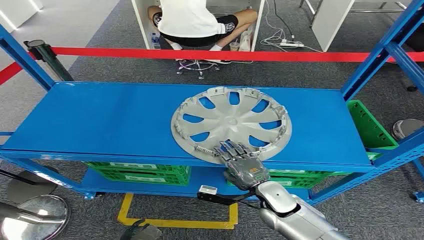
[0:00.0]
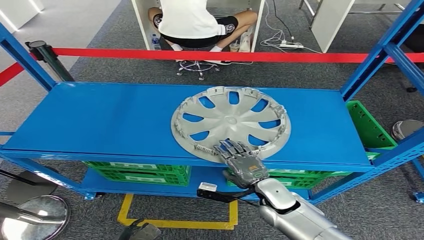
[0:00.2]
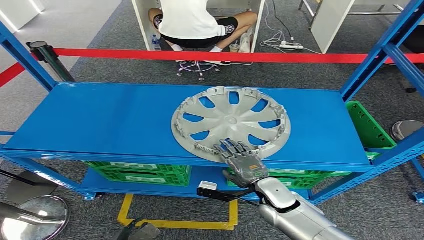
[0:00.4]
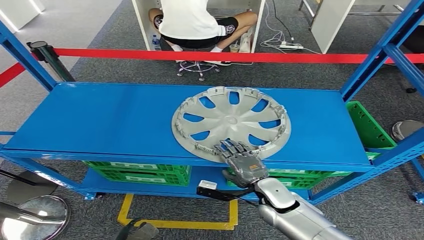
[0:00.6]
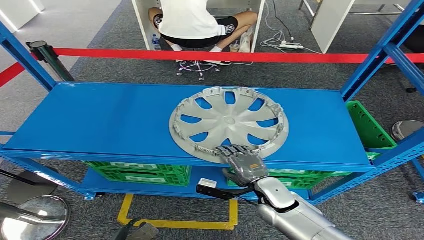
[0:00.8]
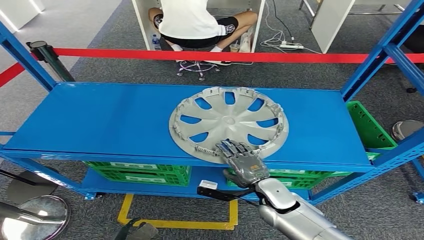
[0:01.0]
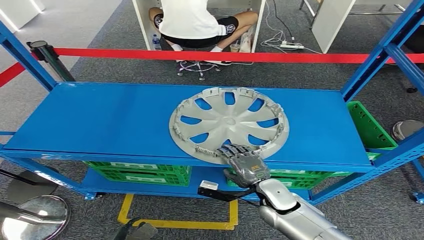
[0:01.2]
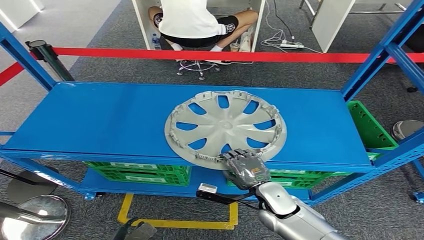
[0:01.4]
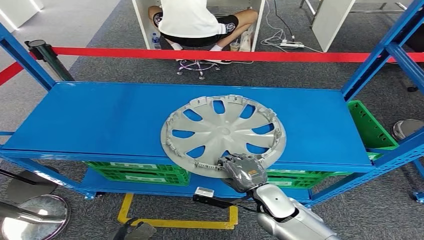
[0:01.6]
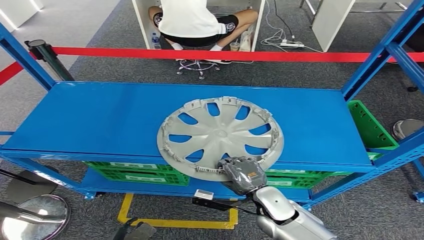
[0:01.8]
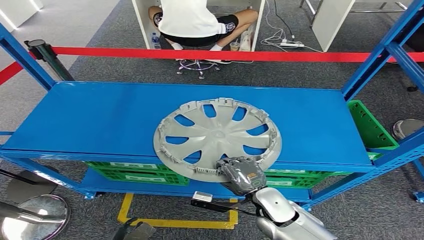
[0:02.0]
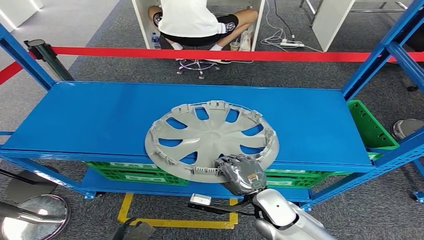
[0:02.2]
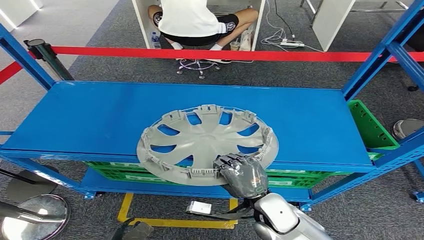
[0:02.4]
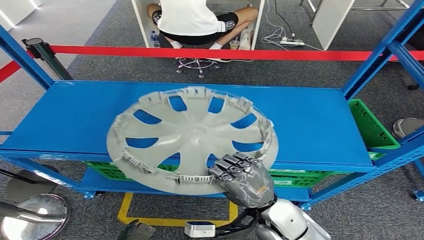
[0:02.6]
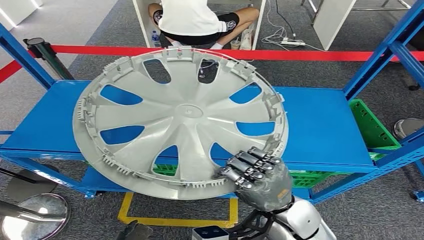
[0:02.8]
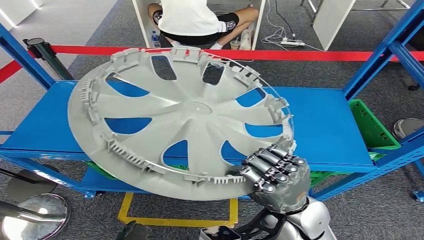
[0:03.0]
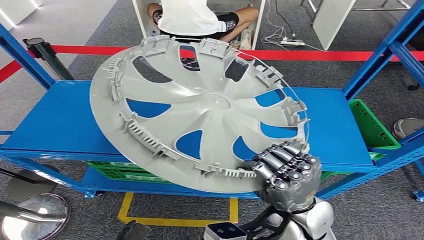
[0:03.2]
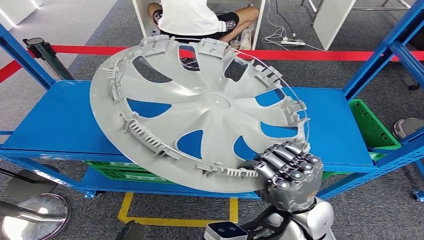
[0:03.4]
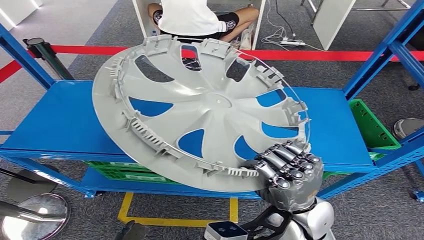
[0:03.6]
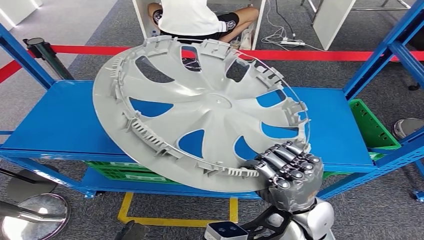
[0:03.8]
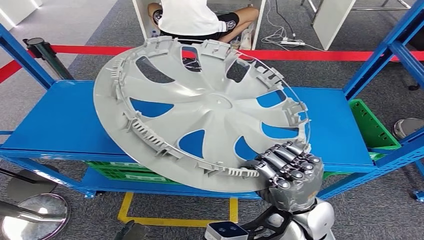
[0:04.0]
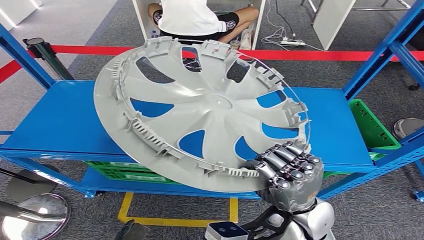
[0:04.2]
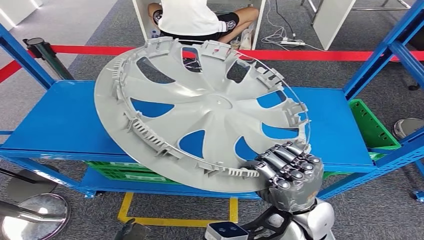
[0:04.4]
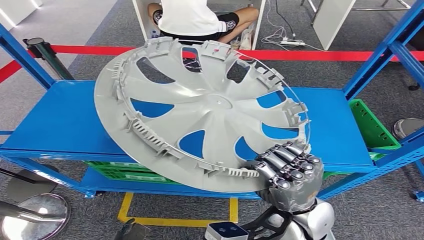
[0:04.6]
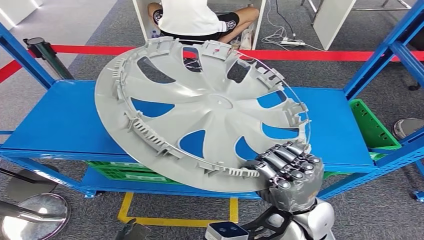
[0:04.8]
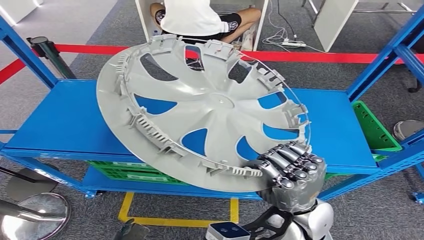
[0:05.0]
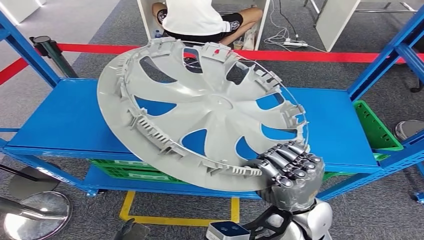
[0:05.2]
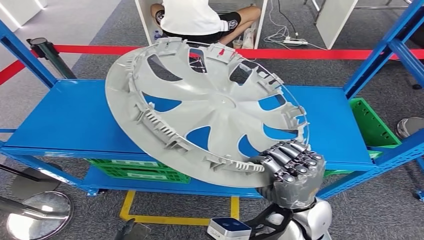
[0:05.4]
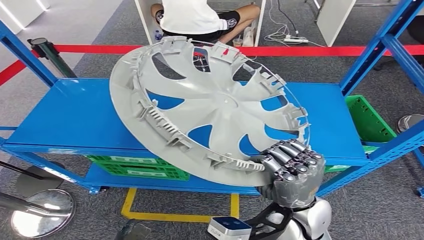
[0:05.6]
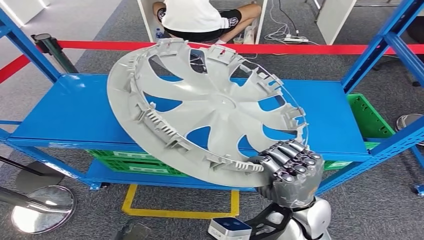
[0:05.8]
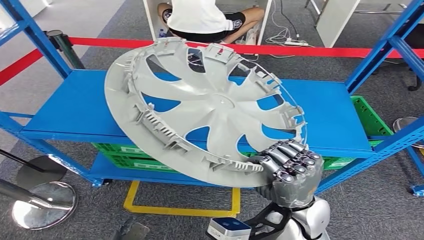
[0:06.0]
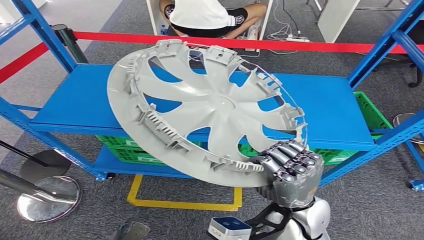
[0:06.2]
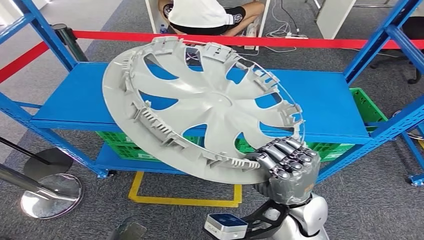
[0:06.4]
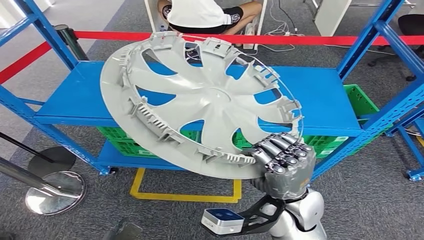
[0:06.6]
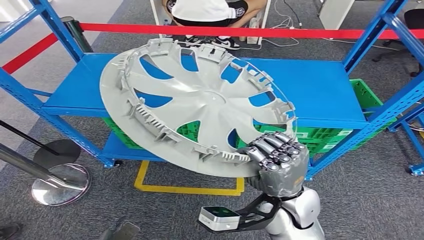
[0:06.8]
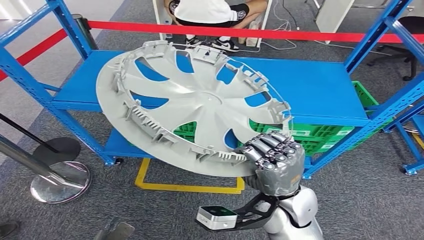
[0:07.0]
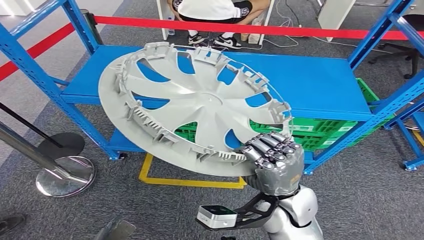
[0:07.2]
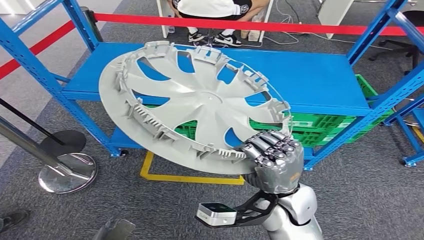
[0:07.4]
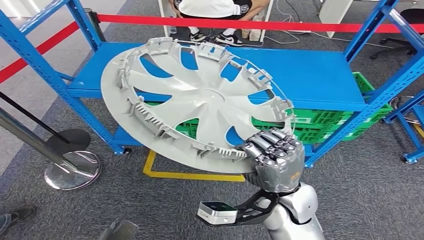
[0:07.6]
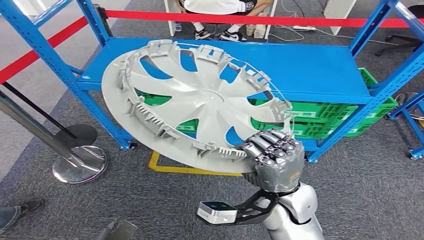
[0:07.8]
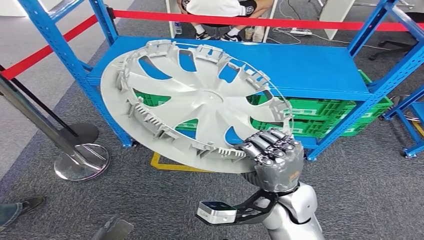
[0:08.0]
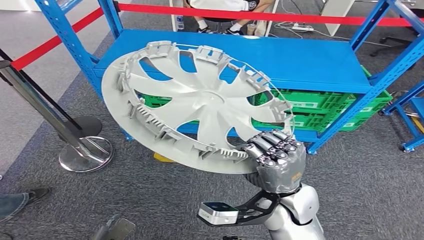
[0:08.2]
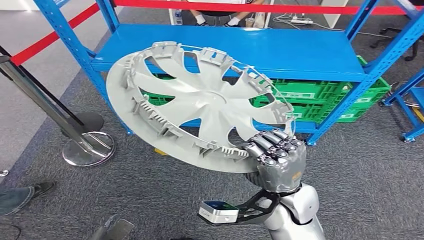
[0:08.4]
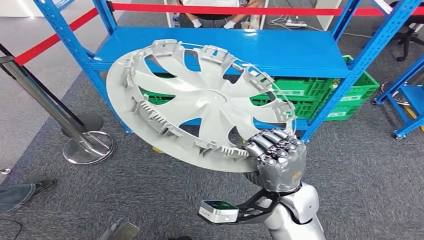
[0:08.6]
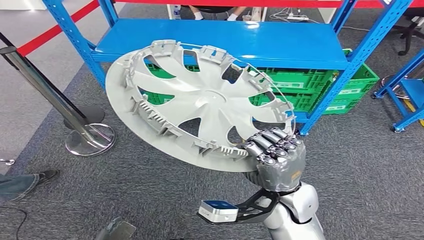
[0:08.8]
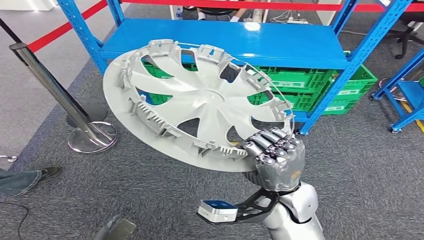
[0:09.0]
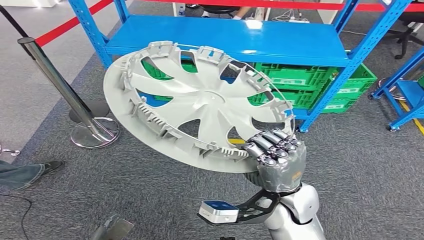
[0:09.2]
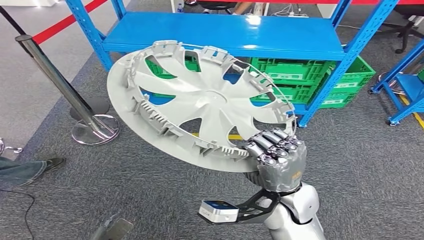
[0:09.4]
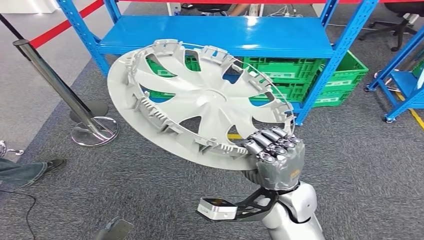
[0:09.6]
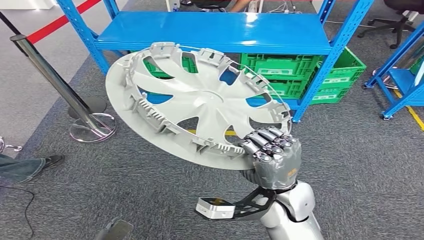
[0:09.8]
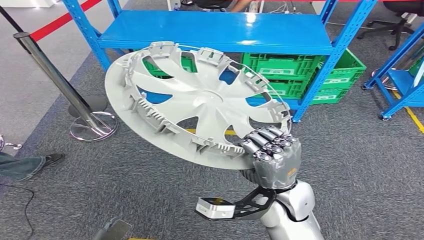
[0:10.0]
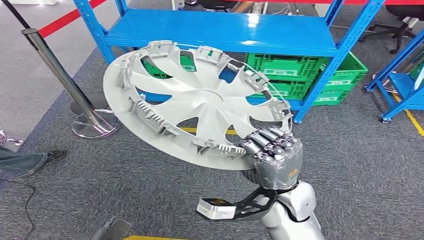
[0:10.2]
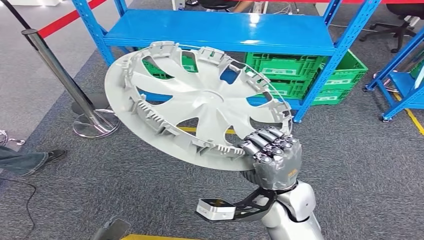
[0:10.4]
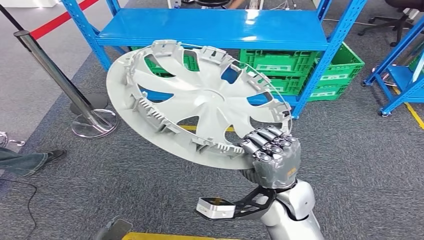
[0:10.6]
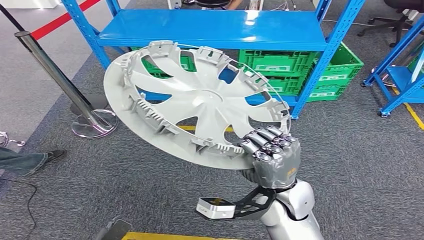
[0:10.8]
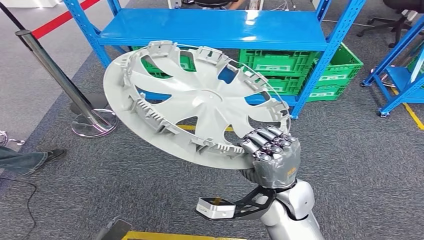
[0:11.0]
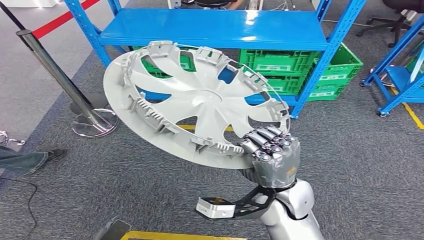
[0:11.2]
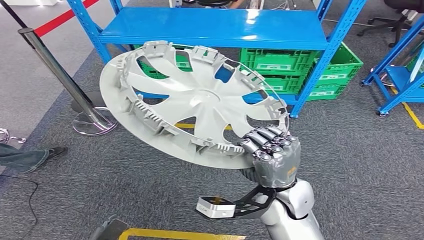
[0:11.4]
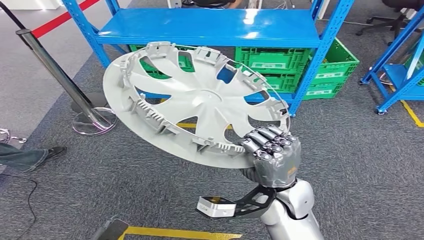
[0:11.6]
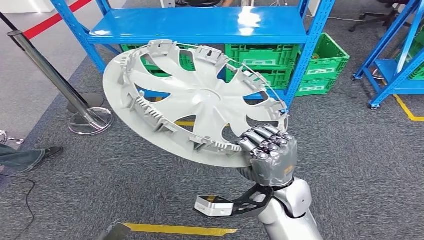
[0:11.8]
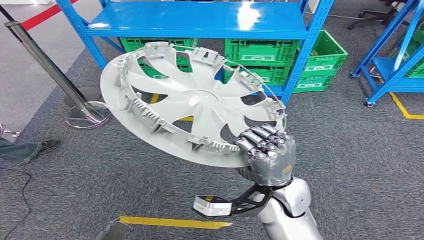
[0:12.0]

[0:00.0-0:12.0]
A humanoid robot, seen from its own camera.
Step, 0:00.0 to 0:07.8: Pick up the small parts from the shelf.

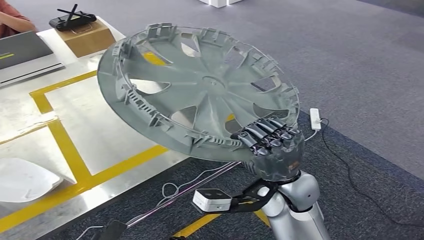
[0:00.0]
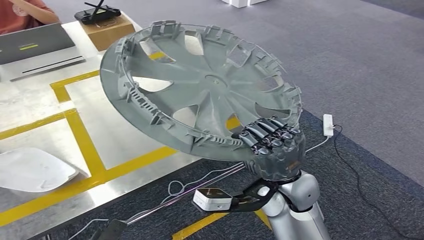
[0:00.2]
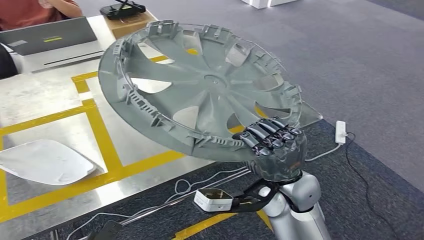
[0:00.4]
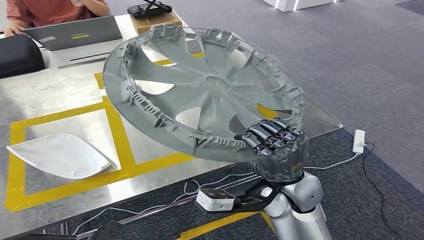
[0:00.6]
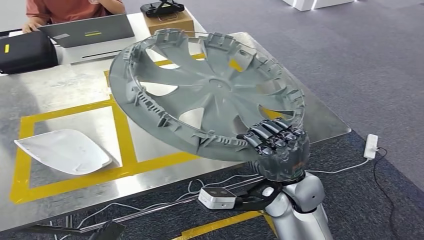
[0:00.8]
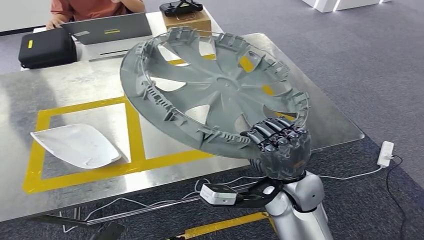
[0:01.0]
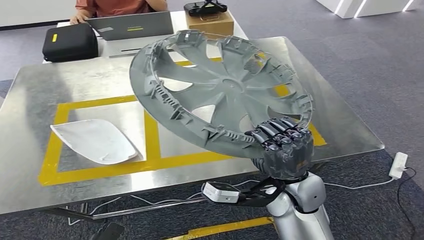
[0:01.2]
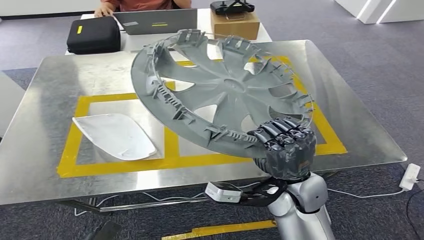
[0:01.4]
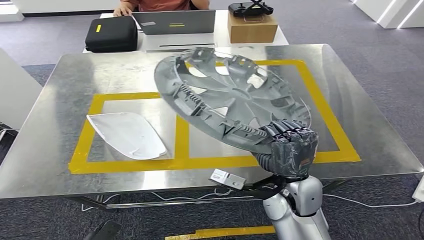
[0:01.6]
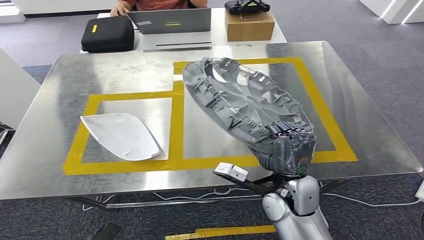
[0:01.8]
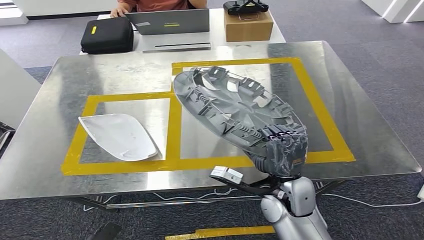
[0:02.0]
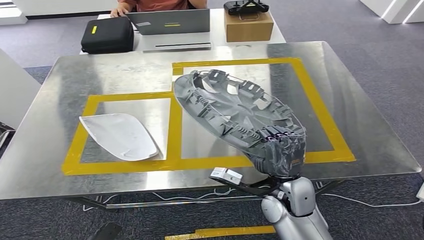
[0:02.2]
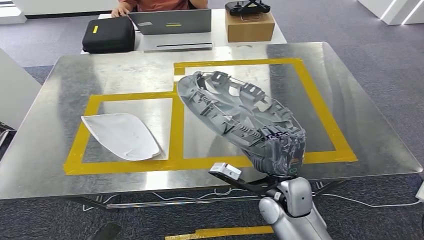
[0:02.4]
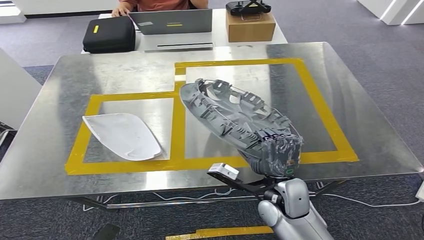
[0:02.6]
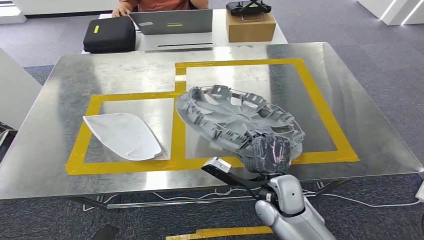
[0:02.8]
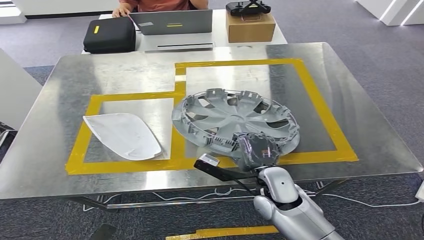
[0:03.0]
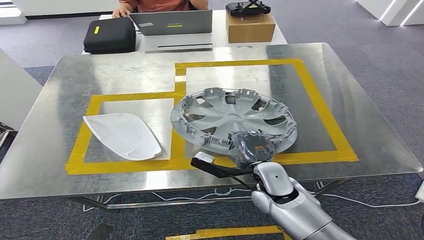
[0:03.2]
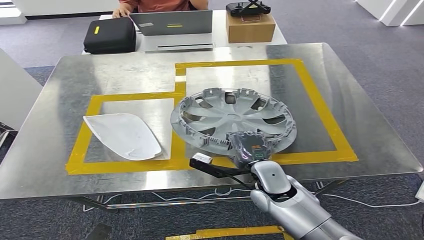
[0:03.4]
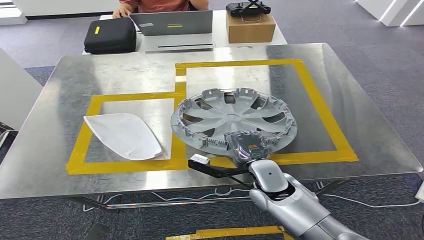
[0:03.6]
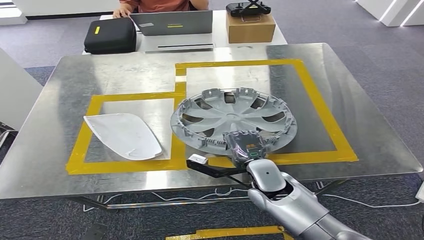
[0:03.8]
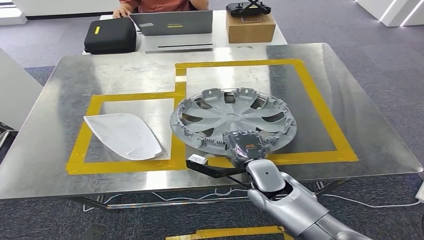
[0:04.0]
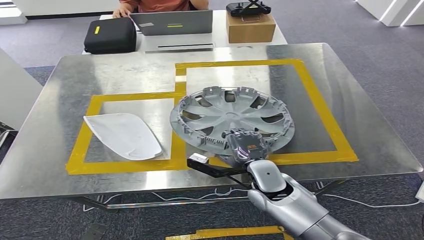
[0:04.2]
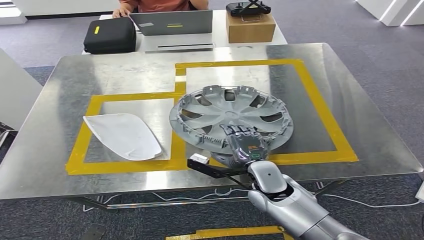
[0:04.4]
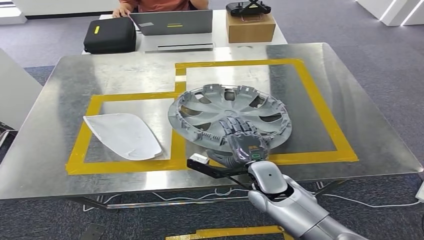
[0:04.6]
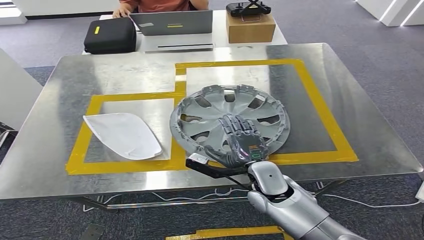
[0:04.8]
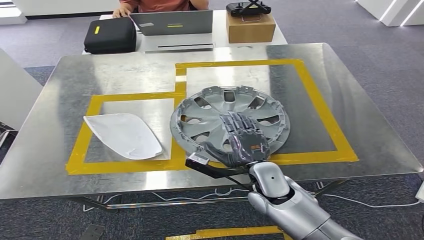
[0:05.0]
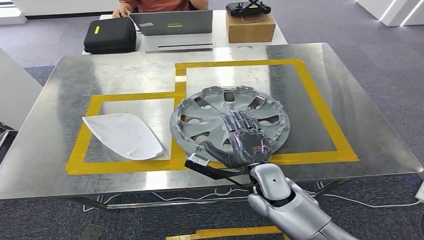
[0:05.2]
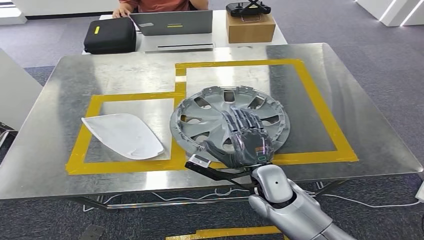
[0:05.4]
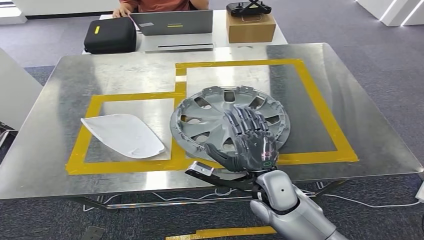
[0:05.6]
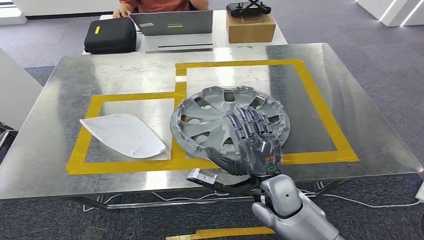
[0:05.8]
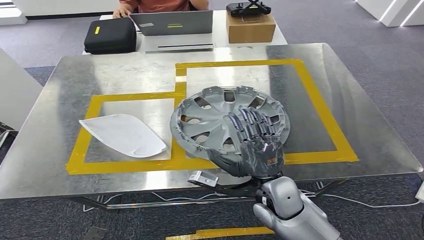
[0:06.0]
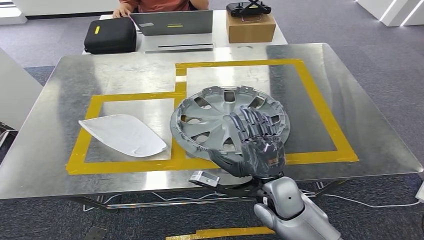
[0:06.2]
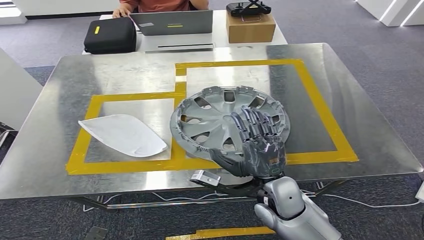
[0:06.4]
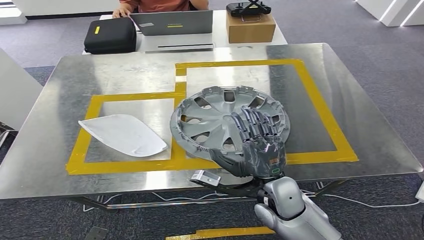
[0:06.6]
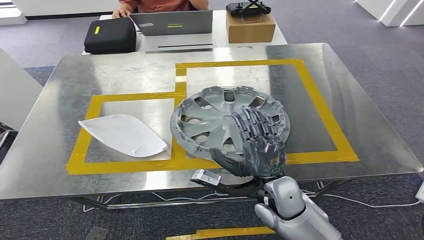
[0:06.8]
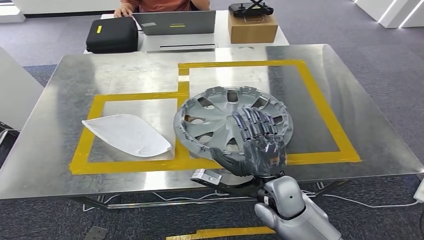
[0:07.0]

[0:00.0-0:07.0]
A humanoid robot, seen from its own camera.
Step, 0:00.0 to 0:02.0: Move the small parts to the workbench.
Step, 0:02.2 to 0:06.0: Insert the small parts into the corresponding holes on the workbench.
0:05.6 to 0:07.0: The hands stay close to where they were, moving slightly.
